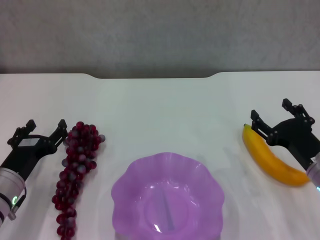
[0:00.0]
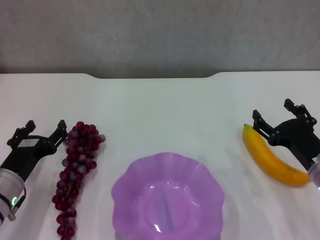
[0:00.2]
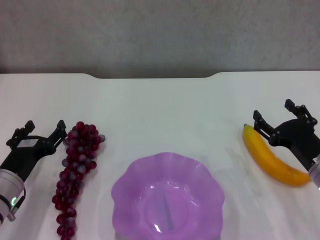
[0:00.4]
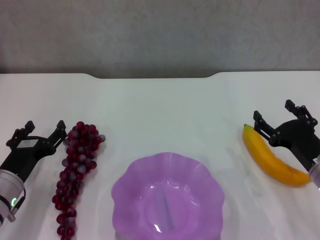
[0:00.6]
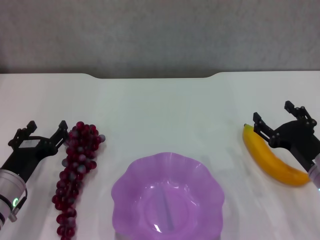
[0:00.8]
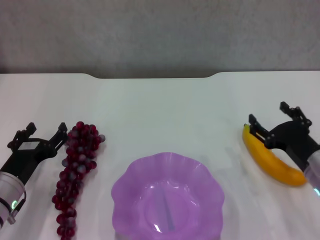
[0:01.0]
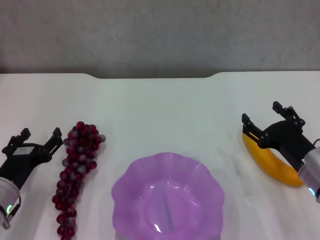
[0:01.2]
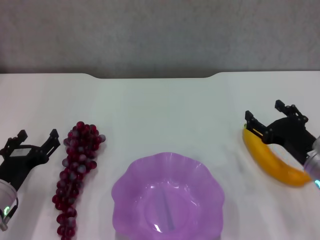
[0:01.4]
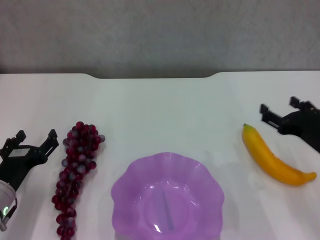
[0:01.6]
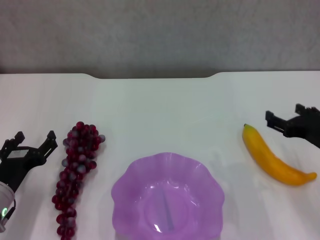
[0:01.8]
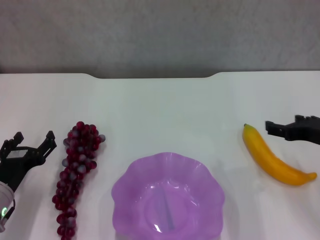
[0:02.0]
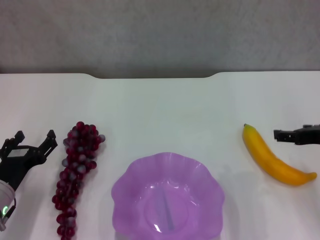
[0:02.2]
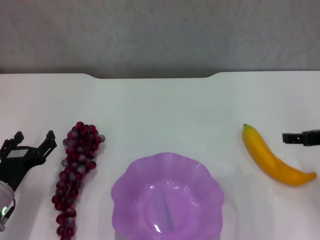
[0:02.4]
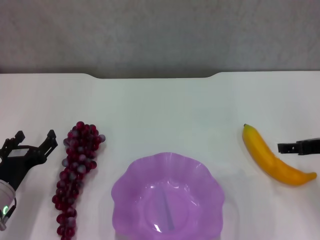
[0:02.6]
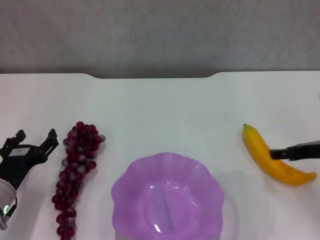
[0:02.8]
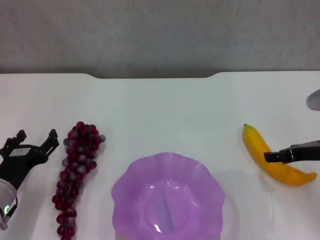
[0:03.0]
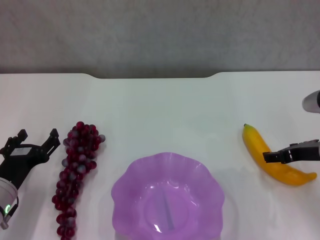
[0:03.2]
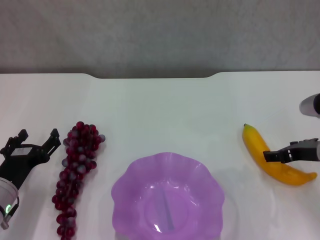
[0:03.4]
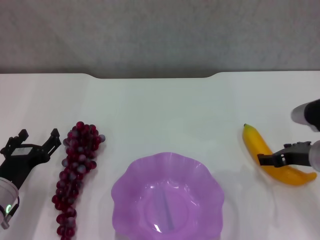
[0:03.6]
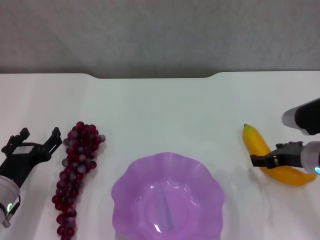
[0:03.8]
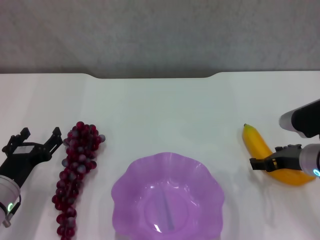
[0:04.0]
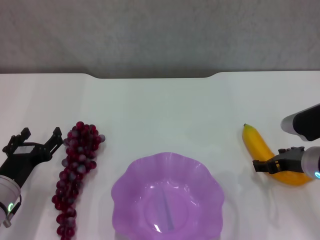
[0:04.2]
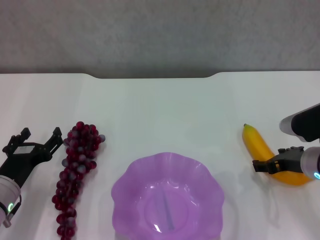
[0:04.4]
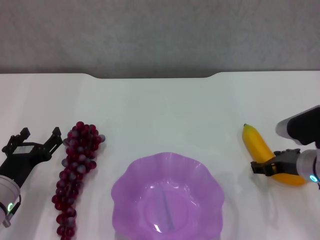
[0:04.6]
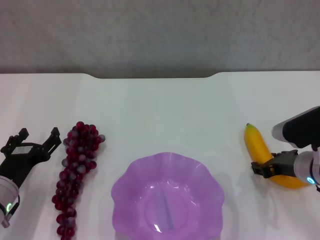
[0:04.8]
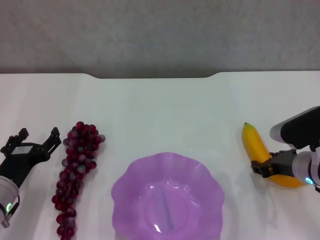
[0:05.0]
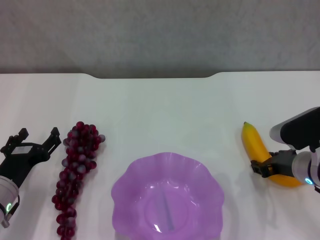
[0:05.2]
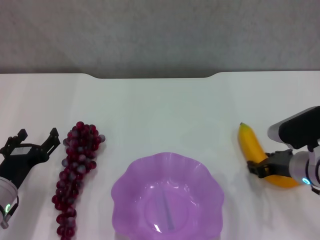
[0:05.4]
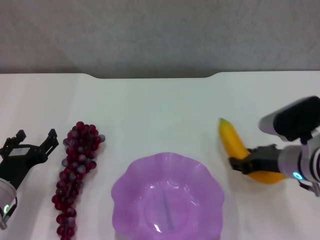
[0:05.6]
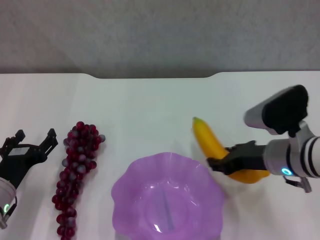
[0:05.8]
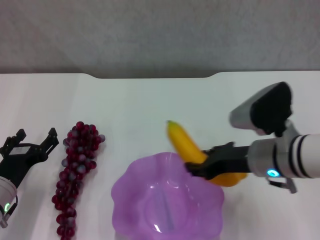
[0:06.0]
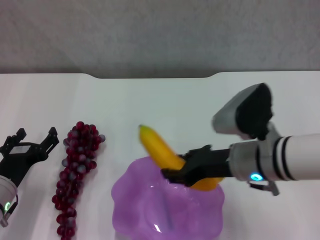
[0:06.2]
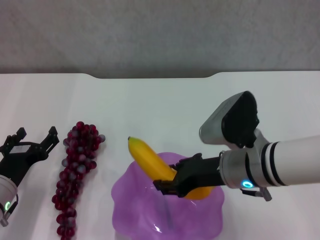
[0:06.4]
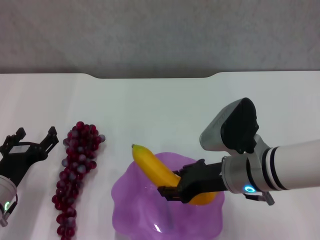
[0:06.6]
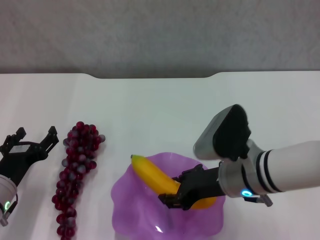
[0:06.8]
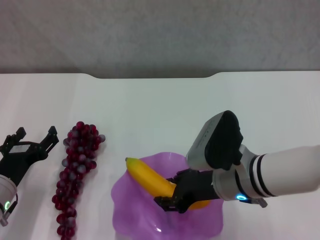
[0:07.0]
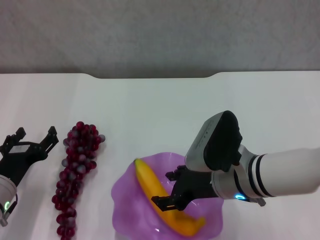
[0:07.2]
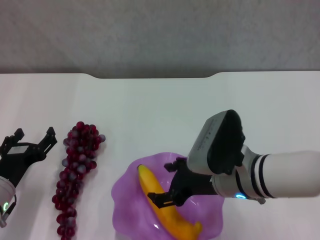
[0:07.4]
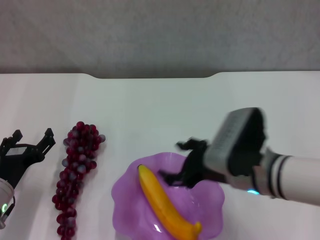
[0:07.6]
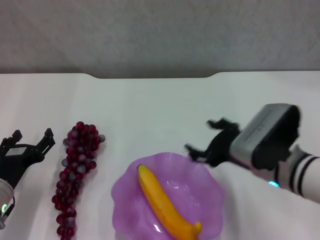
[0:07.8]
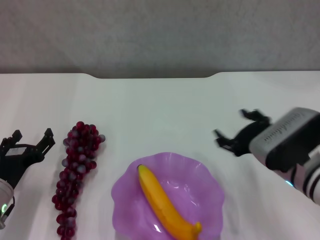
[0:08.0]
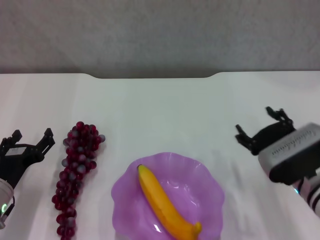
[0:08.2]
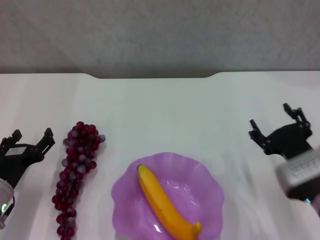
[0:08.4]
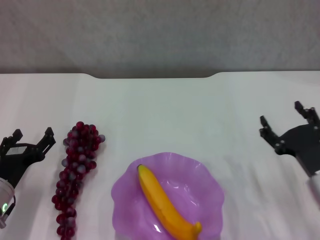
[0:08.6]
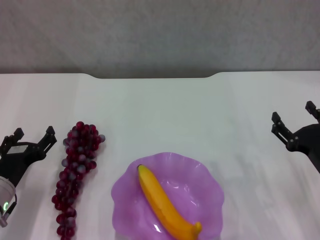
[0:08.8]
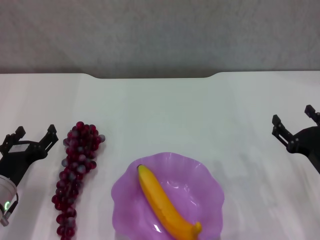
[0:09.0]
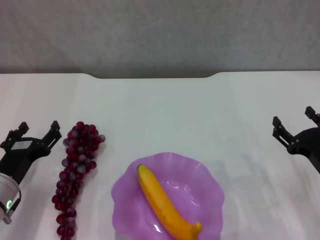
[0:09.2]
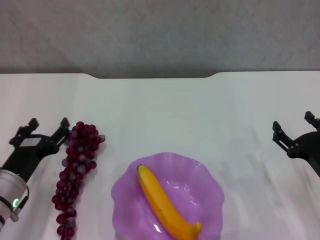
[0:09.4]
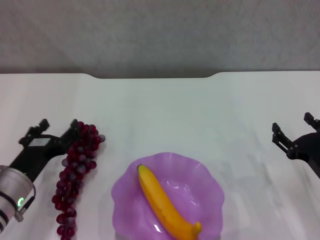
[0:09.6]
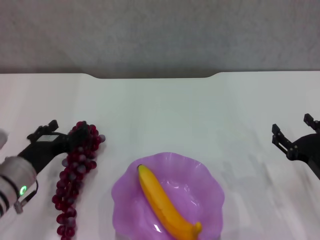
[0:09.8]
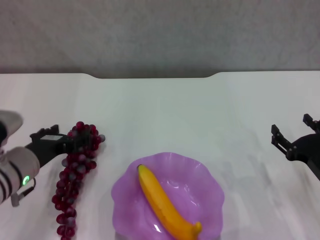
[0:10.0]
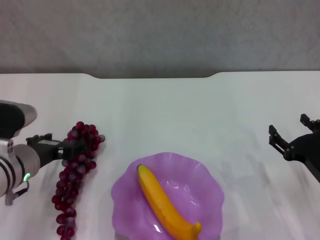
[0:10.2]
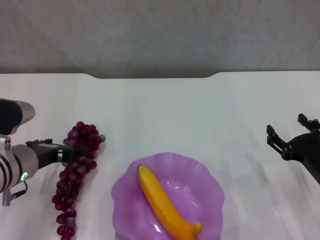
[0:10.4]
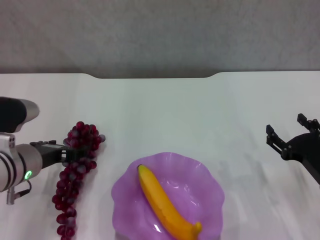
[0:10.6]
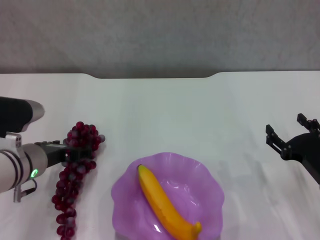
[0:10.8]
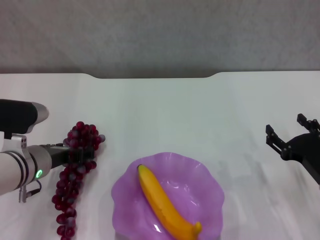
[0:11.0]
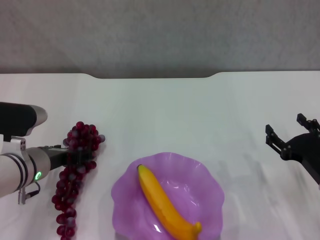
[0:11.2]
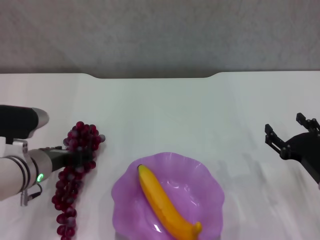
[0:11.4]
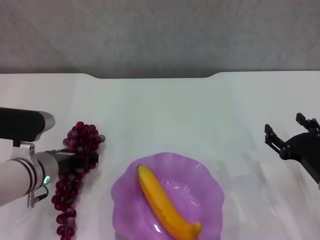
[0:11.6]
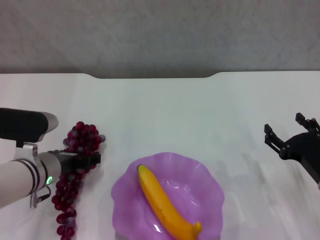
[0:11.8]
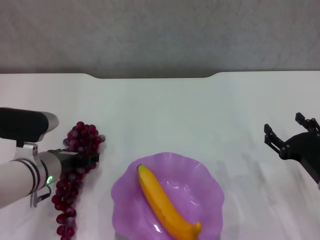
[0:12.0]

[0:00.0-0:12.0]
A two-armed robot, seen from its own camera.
Step, 0:00.0 to 0:05.2: Grasp the banana with right gripper.
Step, 0:05.4 to 0:07.4: Place the banana in the purple plate with right gripper.
0:00.0 to 0:01.6: There are only small adjustments of the grippers.
0:03.0 to 0:04.4: The right gripper shifts by some 5 cm.
0:04.4 to 0:06.0: The right gripper heads to the left and upward, covering roughly 10 cm, and closes its fingers.
0:06.0 to 0:07.6: The right gripper opens.
0:07.6 to 0:09.0: The right gripper travels to the right and downward by roughly 15 cm.
0:09.0 to 0:10.4: The left gripper travels upward by about 10 cm.
0:10.4 to 0:12.0: The left gripper moves approximately 5 cm.

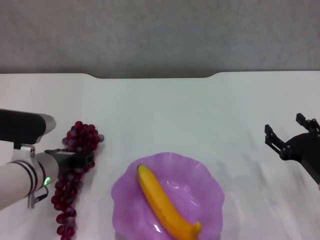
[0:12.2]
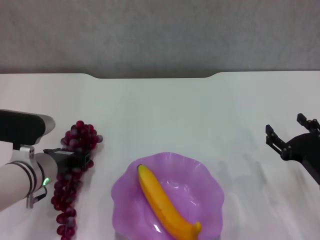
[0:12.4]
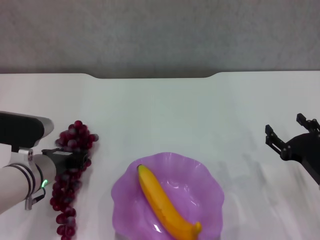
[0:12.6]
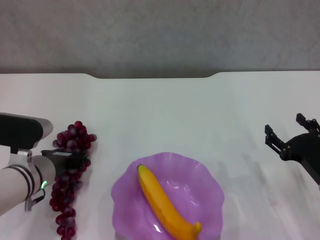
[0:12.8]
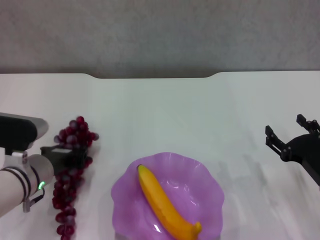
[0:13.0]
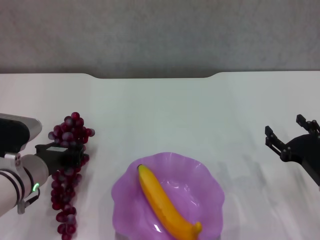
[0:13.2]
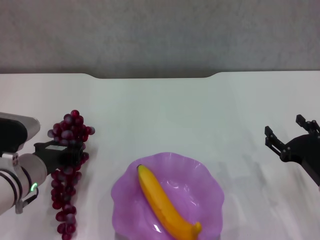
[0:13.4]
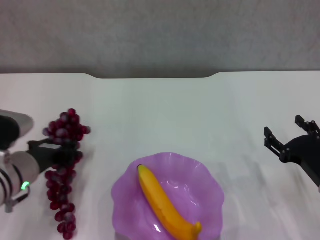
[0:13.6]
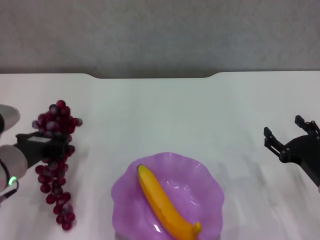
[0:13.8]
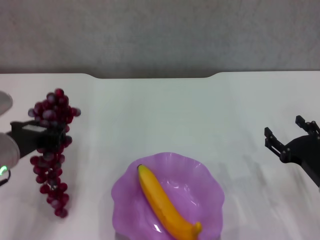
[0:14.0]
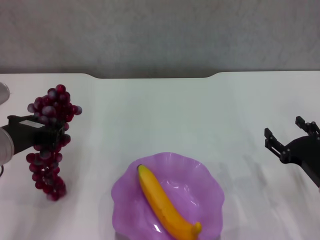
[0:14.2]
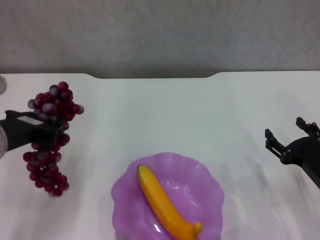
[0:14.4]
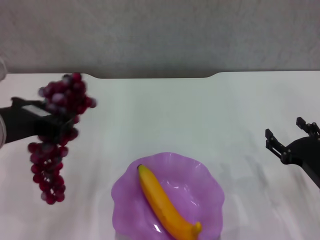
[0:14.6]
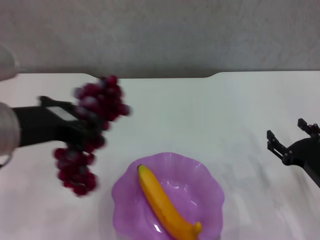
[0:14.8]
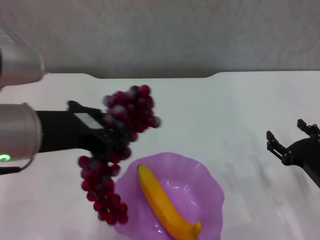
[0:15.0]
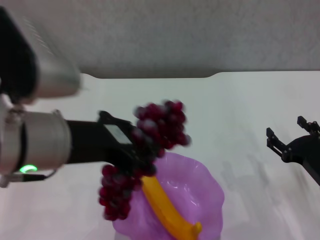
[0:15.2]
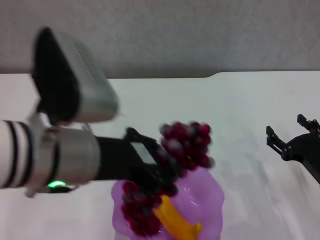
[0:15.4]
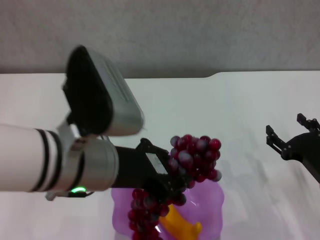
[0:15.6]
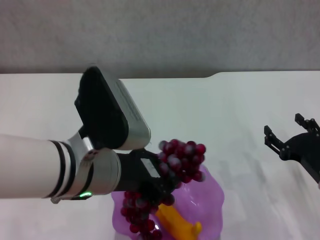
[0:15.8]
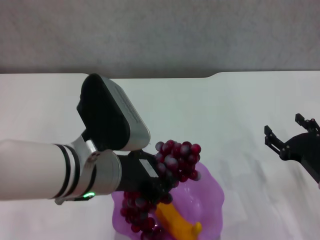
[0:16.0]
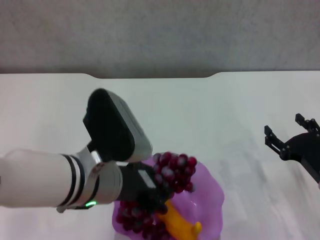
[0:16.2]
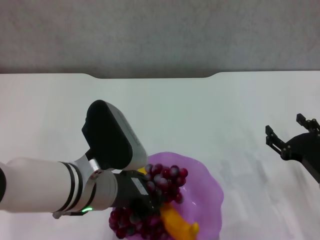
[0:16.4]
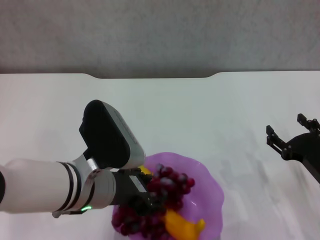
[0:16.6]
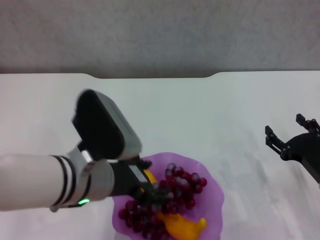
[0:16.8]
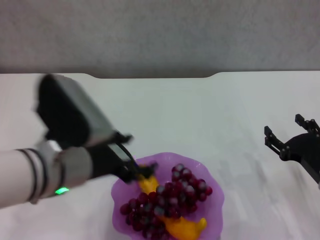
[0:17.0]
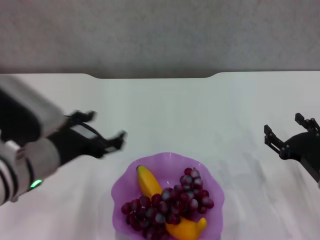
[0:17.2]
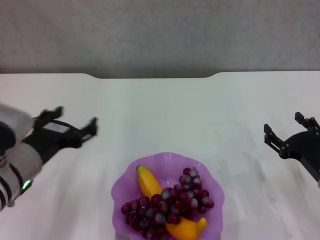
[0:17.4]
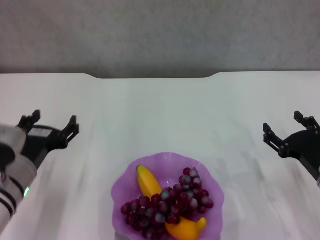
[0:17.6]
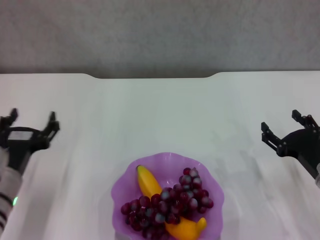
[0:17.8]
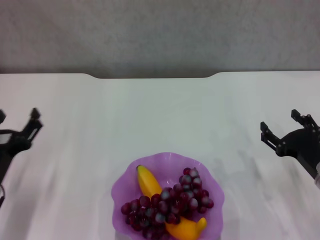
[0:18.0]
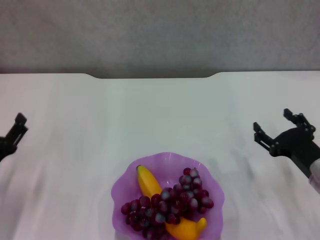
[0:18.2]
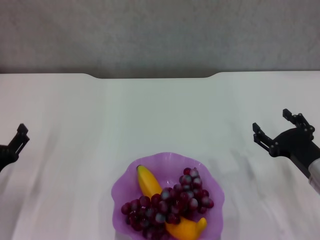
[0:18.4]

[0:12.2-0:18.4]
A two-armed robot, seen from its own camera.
Step, 0:12.8 to 0:16.8: Place the grape in the purple plate with left gripper.
0:12.2 to 0:13.8: The left gripper shifts some 5 cm upward, and closes up.
0:13.8 to 0:15.4: The left gripper heads upward, to the right and backward, covering approximately 20 cm.
0:15.4 to 0:16.8: The left gripper goes some 10 cm downward.
0:16.8 to 0:18.4: The left gripper travels to the left and downward by roughly 20 cm, and opens.

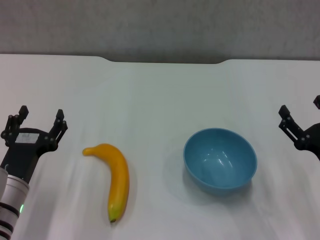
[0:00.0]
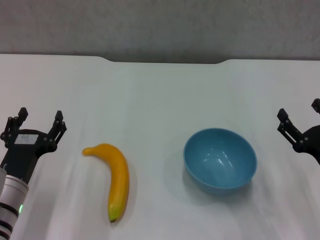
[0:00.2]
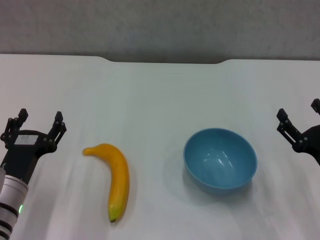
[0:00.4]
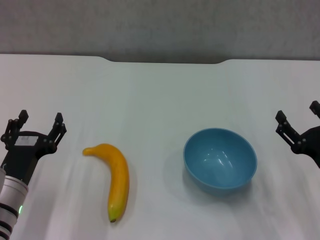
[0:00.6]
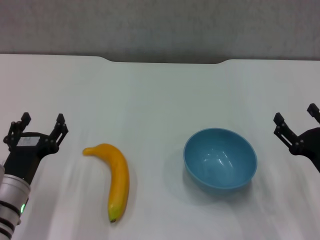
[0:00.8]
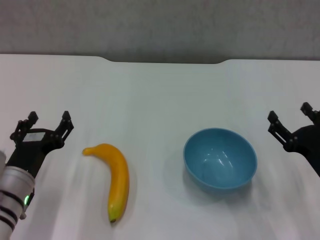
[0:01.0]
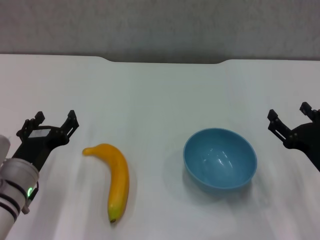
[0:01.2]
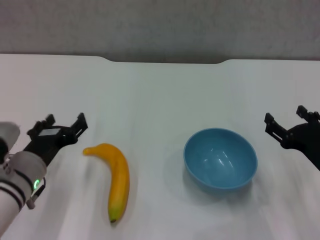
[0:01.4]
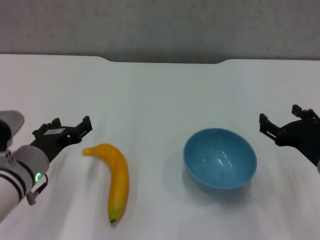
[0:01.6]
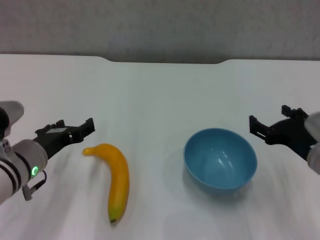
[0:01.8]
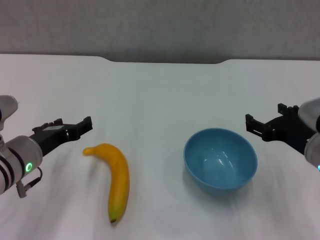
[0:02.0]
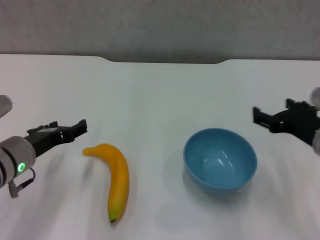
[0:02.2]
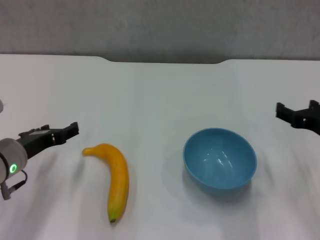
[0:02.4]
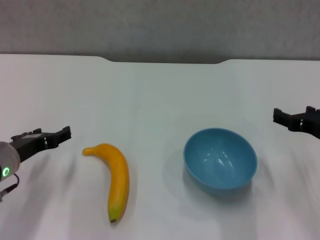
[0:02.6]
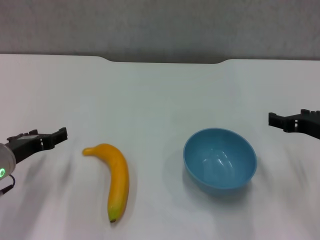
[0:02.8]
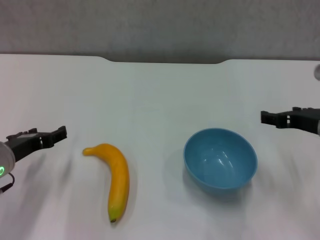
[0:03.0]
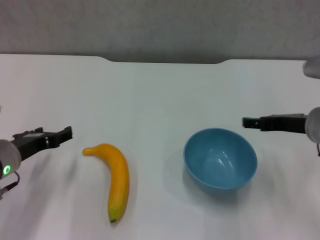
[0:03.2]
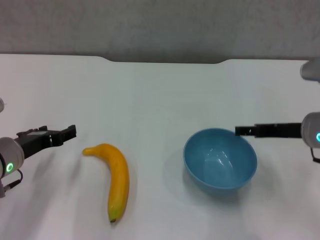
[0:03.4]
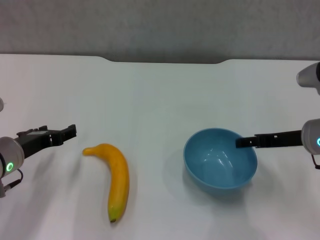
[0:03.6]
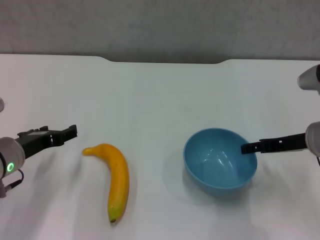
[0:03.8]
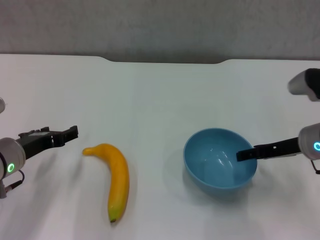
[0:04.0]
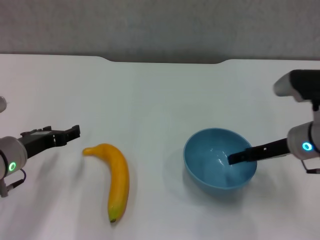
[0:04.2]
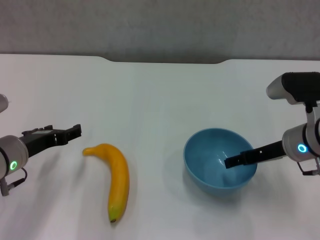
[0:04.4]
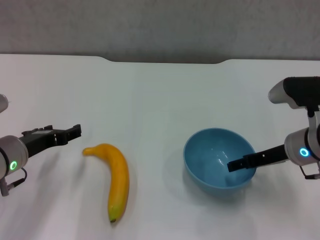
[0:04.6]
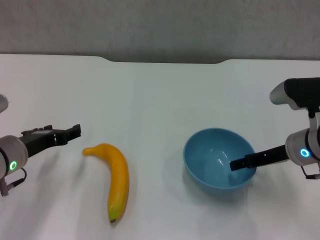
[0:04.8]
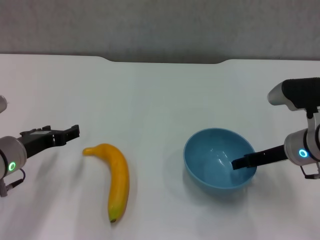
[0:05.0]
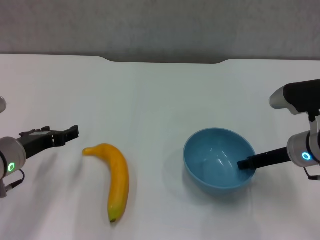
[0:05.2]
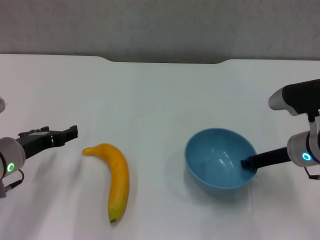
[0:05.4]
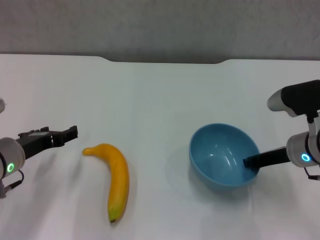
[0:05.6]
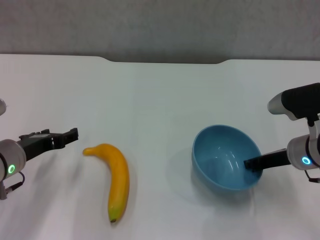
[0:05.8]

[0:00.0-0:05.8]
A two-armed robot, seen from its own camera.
0:01.4 to 0:02.8: The left gripper ends up about 5 cm from where it was. The right gripper shifts approximately 5 cm upward.
0:02.8 to 0:04.4: The right gripper is displaced forward by about 5 cm.
0:04.4 to 0:05.8: The right gripper closes up.
